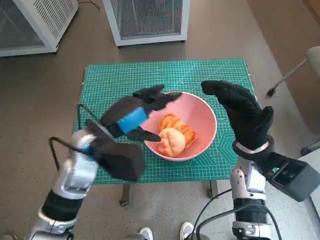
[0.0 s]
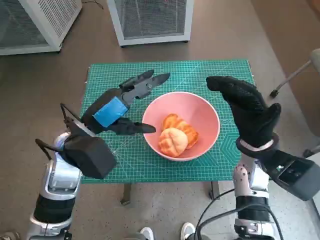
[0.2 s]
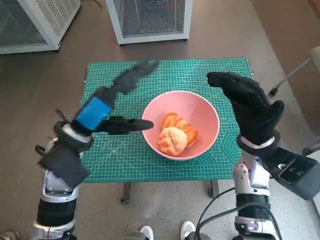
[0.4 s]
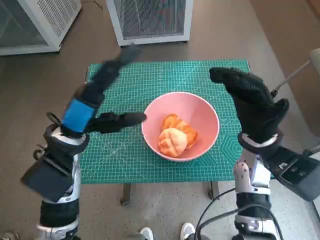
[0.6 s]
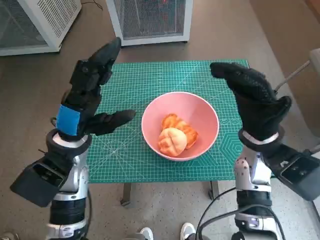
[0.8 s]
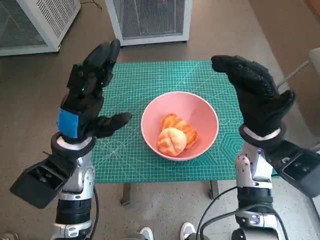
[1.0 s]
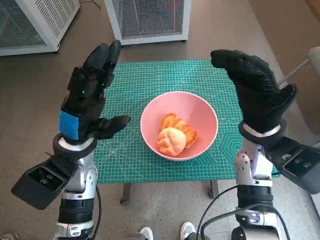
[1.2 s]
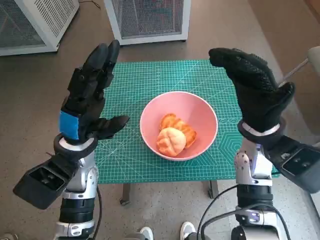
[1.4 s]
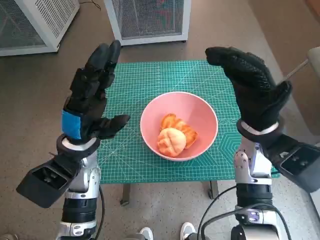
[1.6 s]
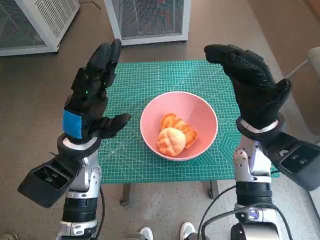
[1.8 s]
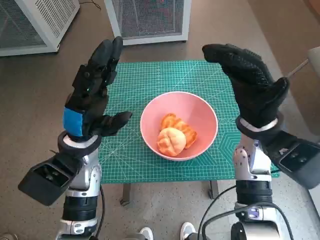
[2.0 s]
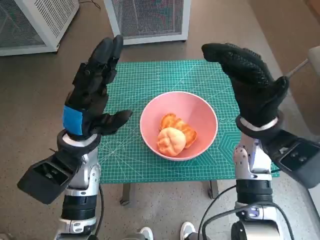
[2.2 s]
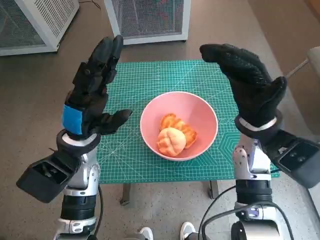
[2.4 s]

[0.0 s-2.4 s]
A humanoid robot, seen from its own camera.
Task of the whole recording: Push the bowl into the center of the table and put the bread into the bowl.
1.2 to 2.4 s: The hands move only a little.

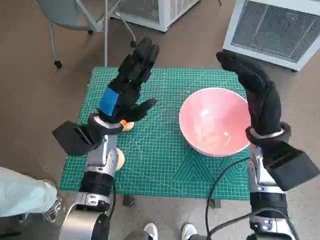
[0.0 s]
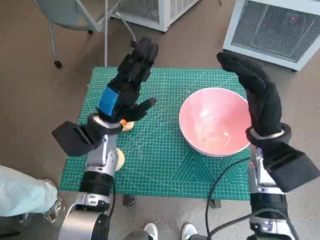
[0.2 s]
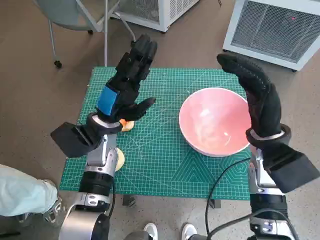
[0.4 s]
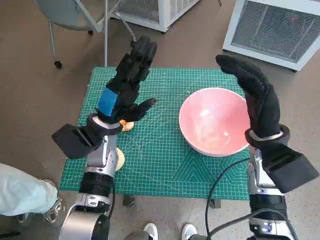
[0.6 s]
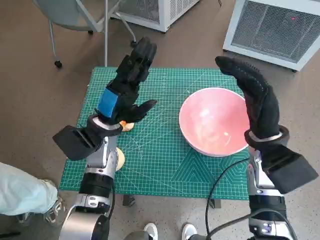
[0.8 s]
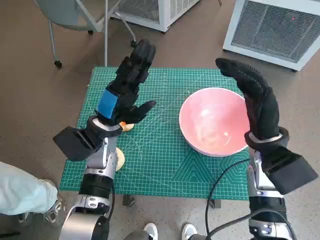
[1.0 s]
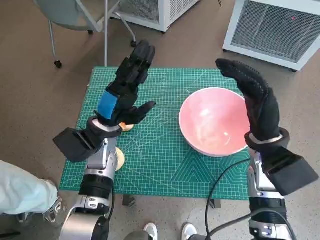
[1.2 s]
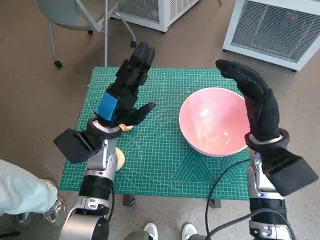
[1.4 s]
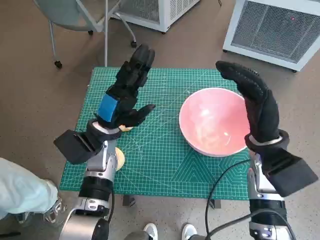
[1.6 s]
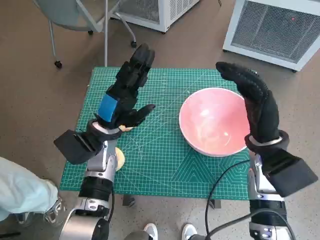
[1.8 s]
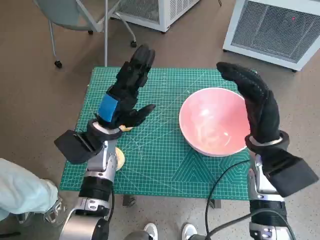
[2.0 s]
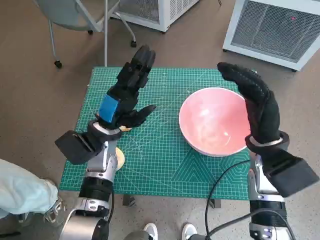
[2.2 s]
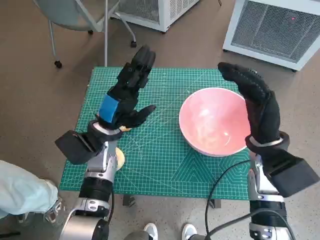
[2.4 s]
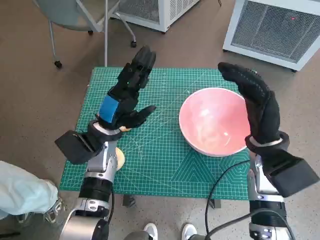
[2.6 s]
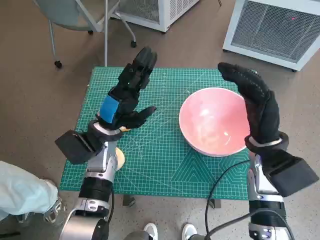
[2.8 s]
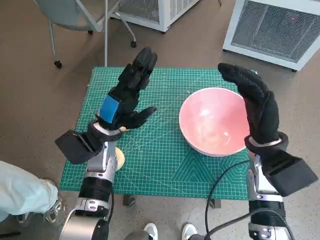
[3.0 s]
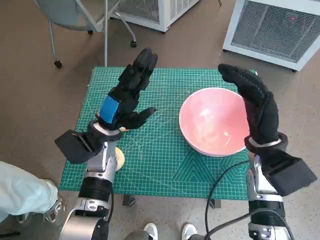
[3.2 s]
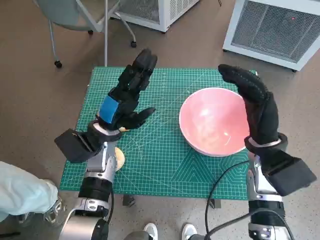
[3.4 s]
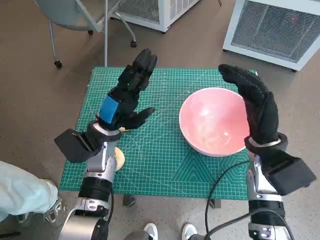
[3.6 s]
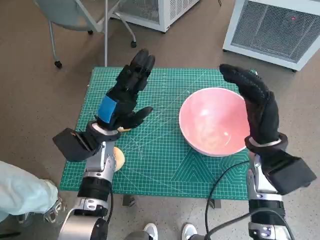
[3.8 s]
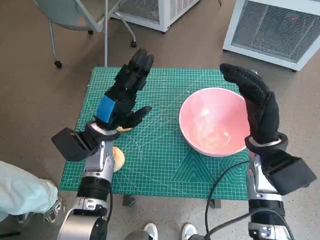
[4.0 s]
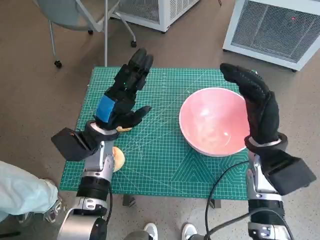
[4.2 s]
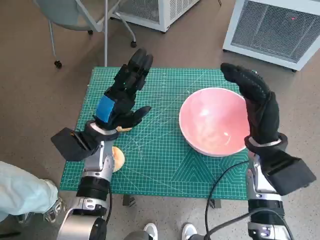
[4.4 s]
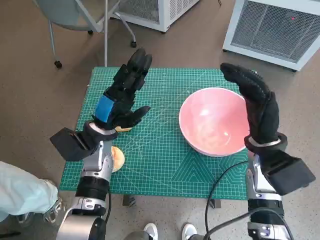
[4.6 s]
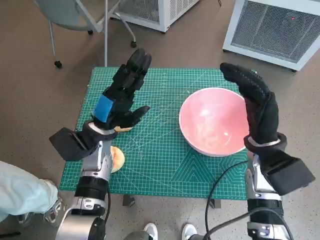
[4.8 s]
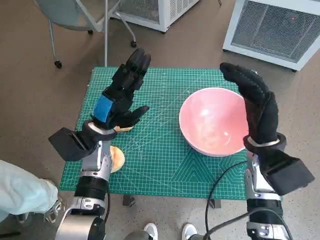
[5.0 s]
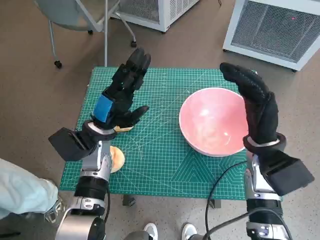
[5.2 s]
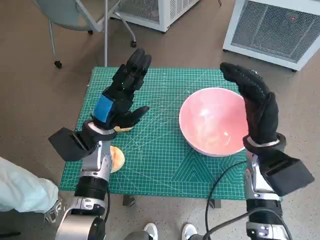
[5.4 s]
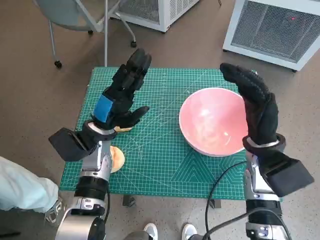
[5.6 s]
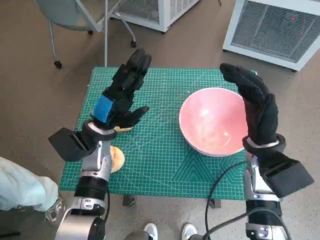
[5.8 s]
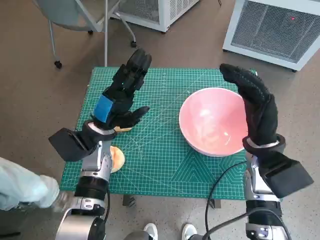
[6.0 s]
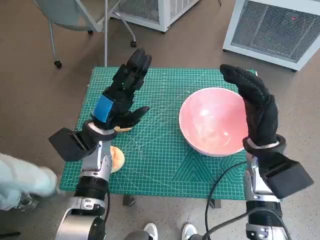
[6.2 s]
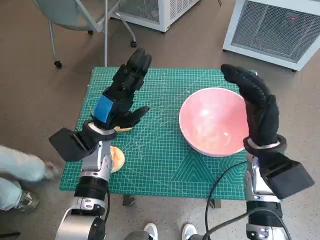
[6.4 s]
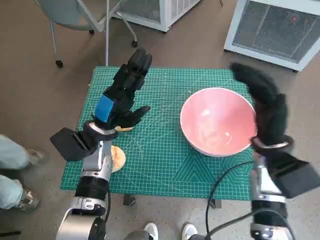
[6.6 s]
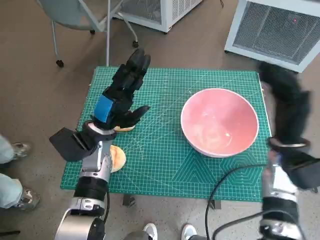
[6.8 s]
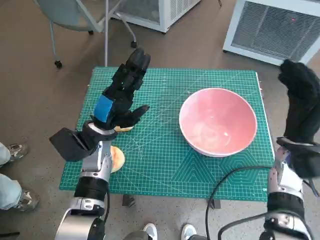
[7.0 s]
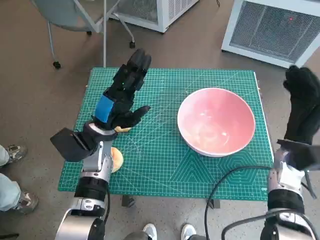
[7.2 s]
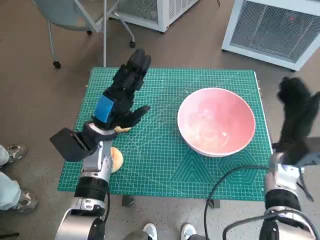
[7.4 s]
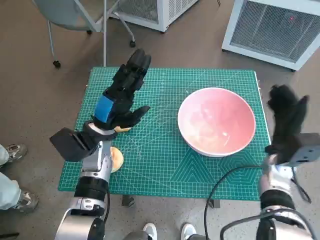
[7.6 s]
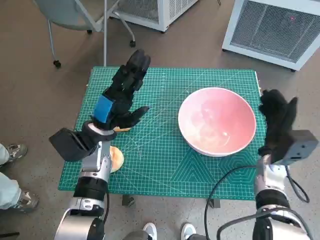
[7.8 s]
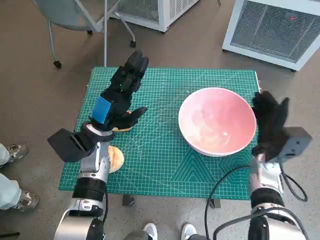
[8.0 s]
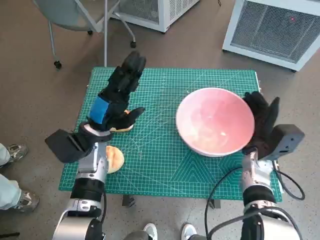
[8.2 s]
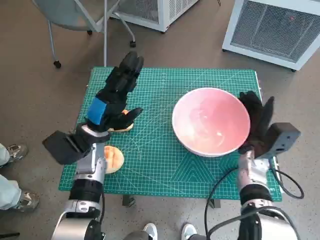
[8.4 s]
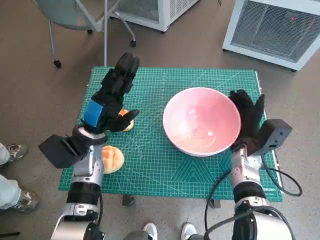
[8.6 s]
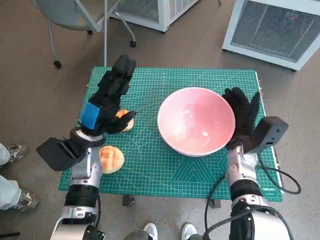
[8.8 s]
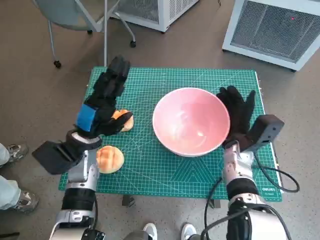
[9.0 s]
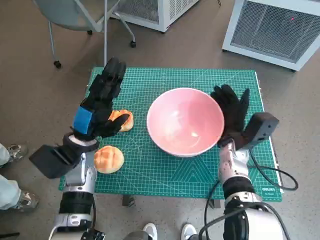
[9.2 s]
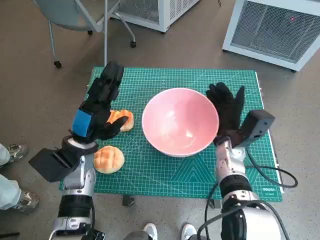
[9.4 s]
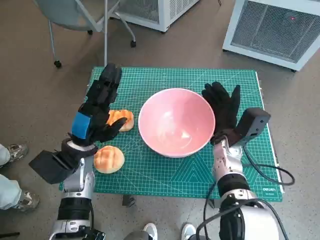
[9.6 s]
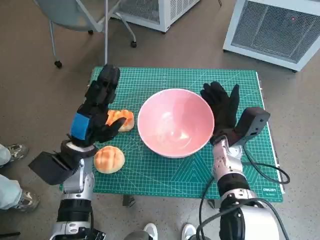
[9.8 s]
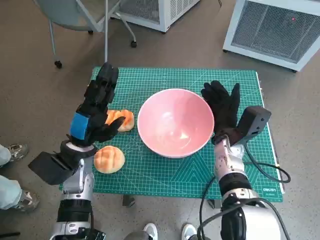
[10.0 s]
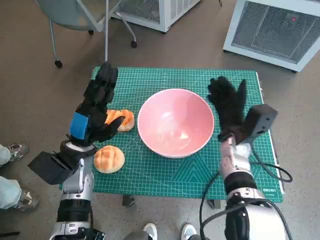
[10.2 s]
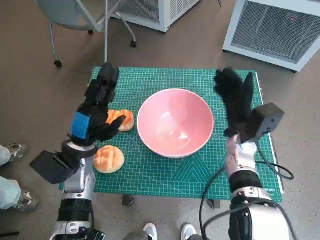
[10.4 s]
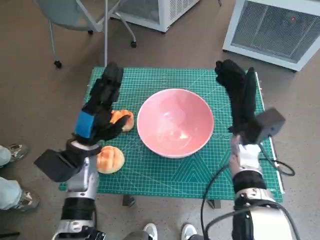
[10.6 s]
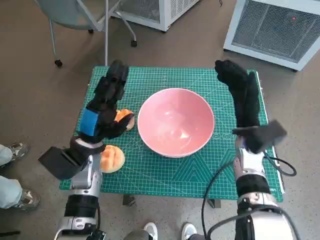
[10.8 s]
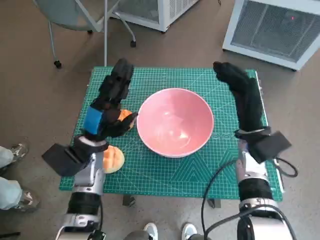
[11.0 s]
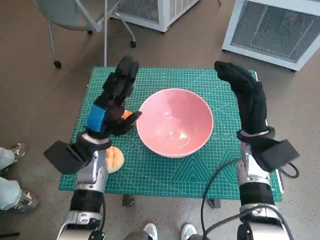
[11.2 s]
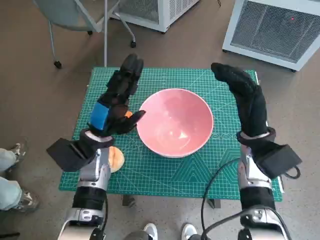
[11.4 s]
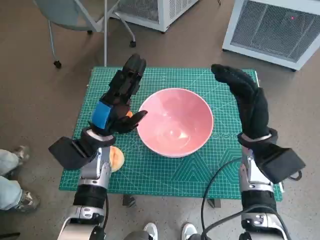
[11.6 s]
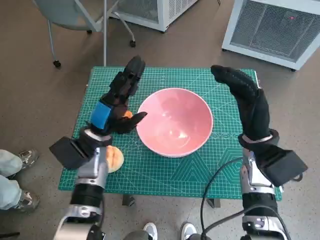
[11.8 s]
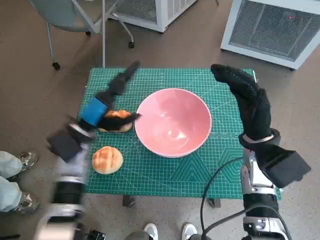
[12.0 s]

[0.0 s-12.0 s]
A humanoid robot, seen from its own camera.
Task of the whole recording: Push the bowl into the center of the table and put the bread into the bowl.
Step, 0.0 to 10.2 s: Move the pink bowl to the center of table with right hand.
1.6 to 4.4 s: Neither hand changes place.
4.4 to 6.0 s: Both hands stay about where they are.
6.0 to 7.6 s: The right hand heads downward and to the right, covering about 10 cm.
7.6 to 9.0 s: The right hand is displaced to the left by some 10 cm.
10.4 to 12.0 s: The right hand travels upward by about 5 cm.

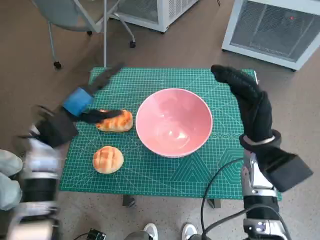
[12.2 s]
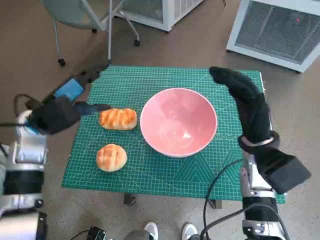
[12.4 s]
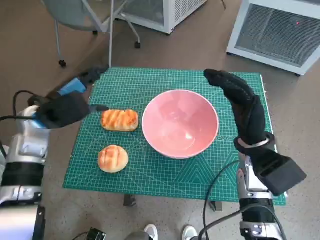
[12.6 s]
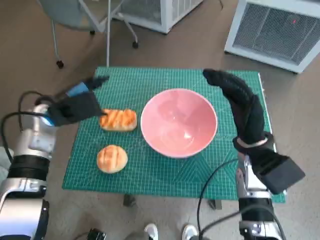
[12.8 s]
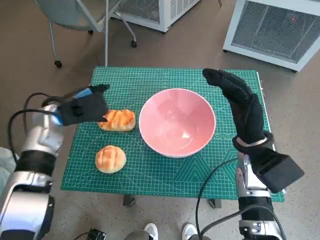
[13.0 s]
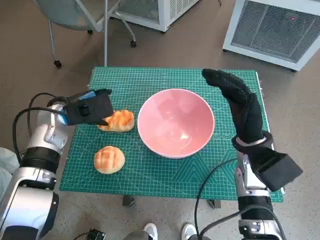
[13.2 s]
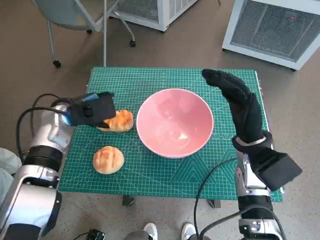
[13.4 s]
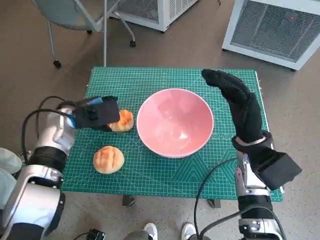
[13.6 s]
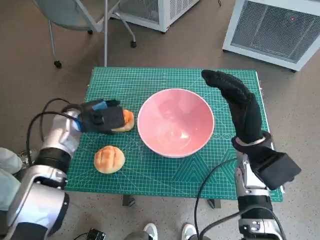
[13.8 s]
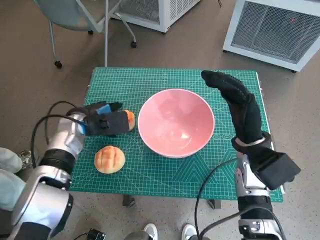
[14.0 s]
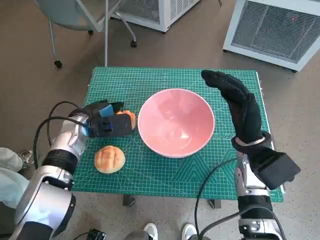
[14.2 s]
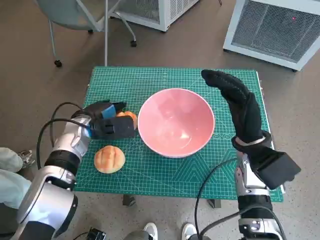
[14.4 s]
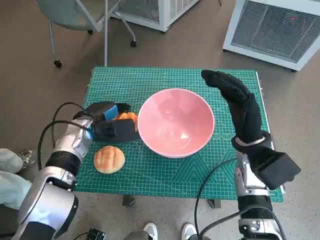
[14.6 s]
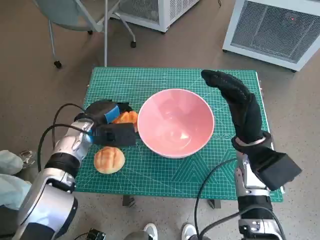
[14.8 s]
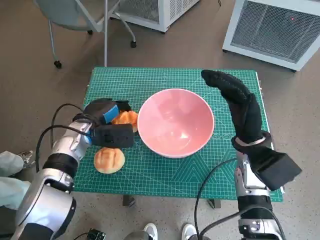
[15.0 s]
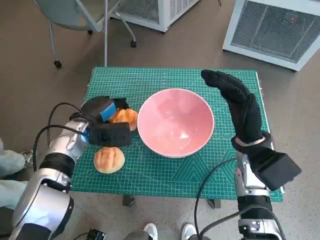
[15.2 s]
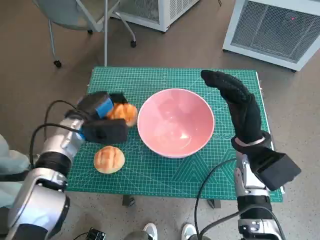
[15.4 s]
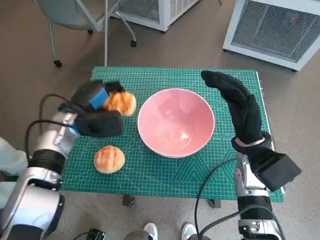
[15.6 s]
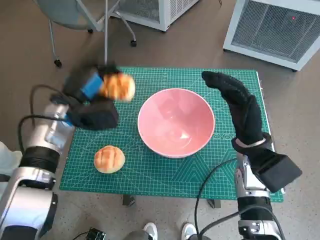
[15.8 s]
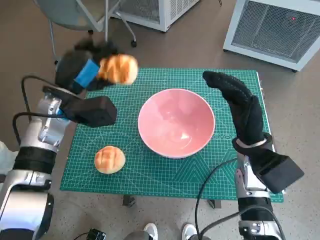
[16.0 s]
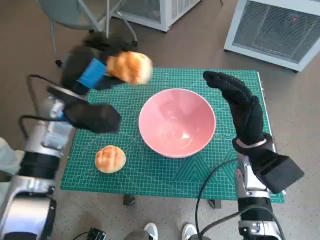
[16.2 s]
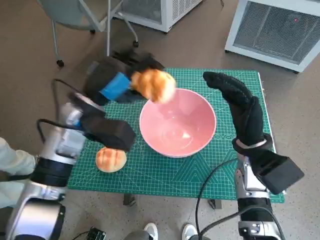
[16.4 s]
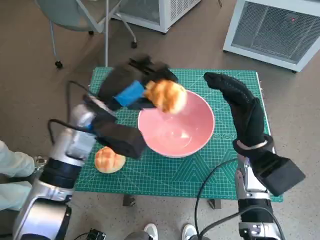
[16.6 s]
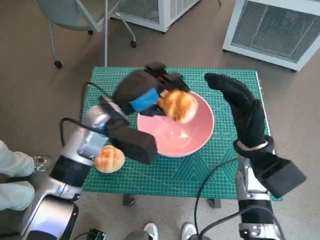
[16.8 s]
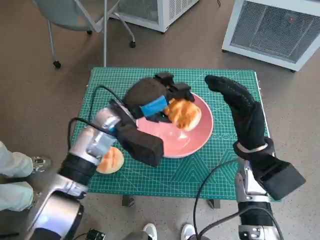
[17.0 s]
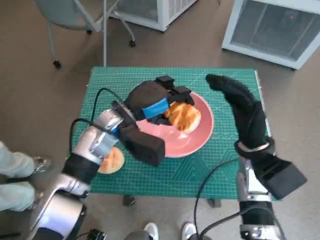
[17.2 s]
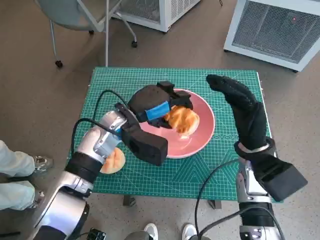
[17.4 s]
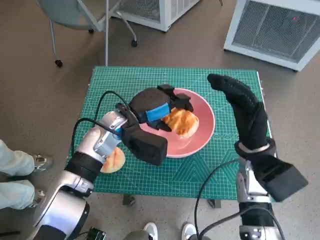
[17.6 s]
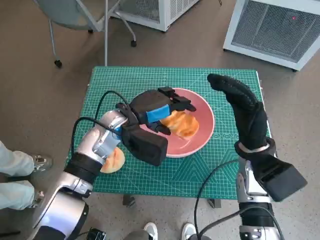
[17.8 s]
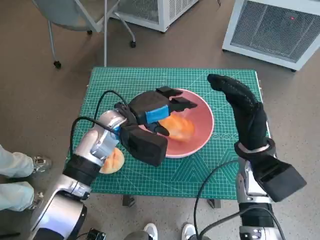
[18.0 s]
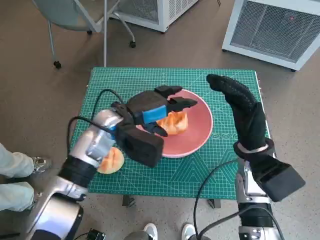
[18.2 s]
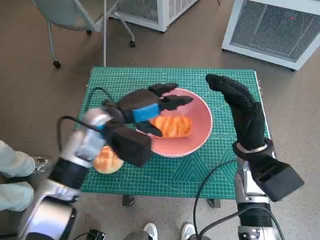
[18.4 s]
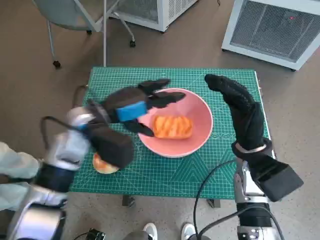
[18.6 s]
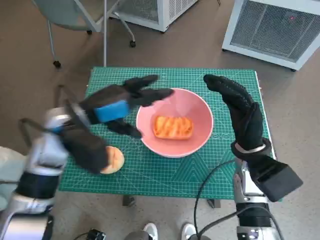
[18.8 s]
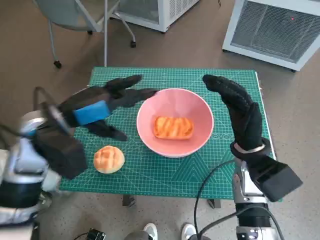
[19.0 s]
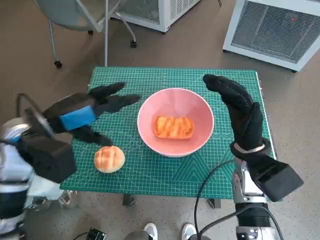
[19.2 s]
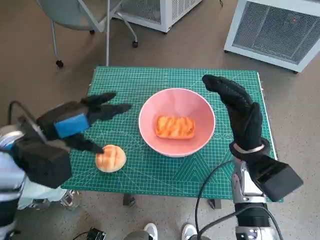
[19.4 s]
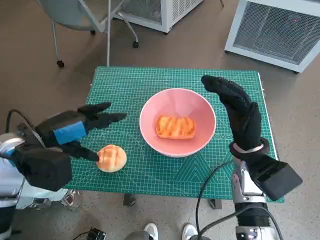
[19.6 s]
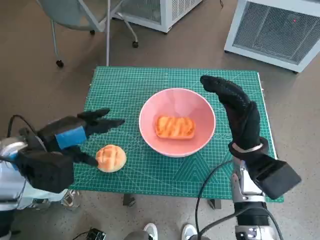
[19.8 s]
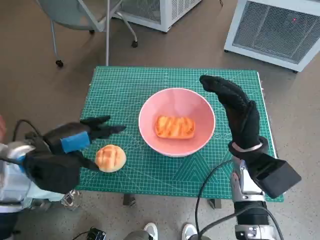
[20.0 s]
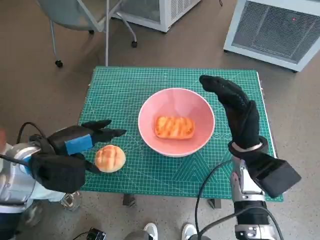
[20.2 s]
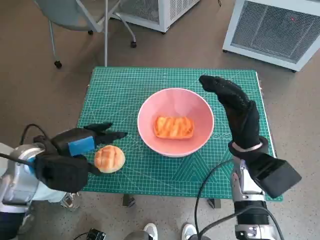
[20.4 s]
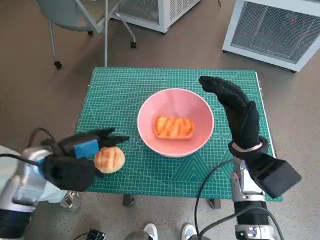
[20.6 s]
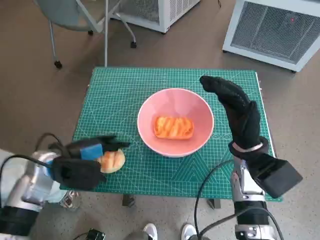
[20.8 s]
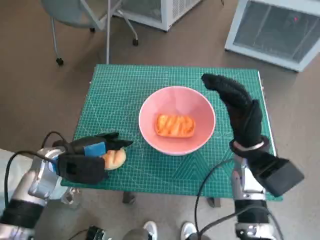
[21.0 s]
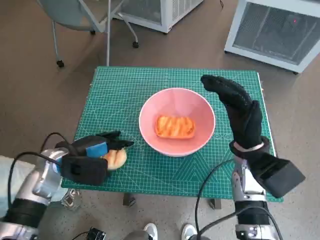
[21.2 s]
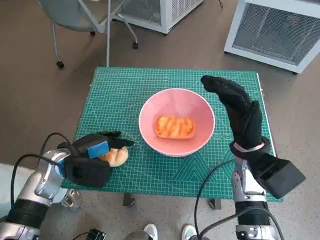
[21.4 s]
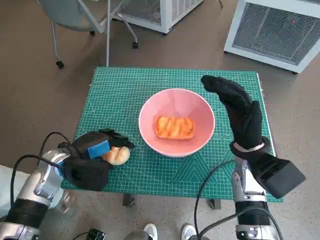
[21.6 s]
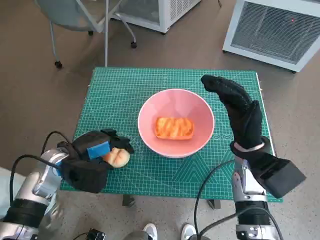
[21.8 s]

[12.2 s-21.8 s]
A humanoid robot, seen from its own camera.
Task of the whole recording: Push the bowl into the center of the table and put the bread into the bowl.
Step, 12.2 to 14.6 s: Grasp the long bread with left hand.
Step, 14.8 to 18.0 s: Place the long bread in pink bowl with left hand.
Step, 18.2 to 21.4 s: Grasp the round bread with left hand.
12.2 to 13.8 s: The left hand moves about 5 cm.
15.4 to 17.0 s: The left hand moves to the right and upward, some 10 cm.
18.6 to 20.2 s: The left hand moves to the left and backward, roughly 10 cm.
20.2 to 21.8 s: The left hand is displaced downward by about 5 cm.
